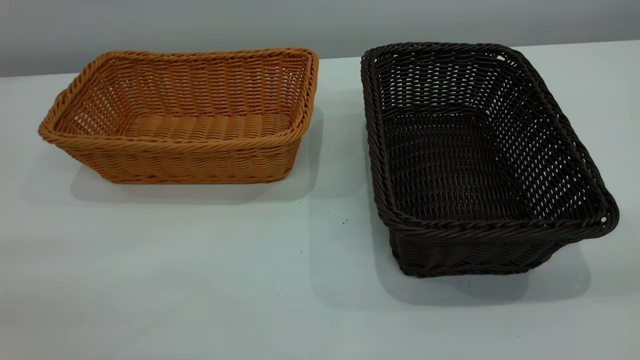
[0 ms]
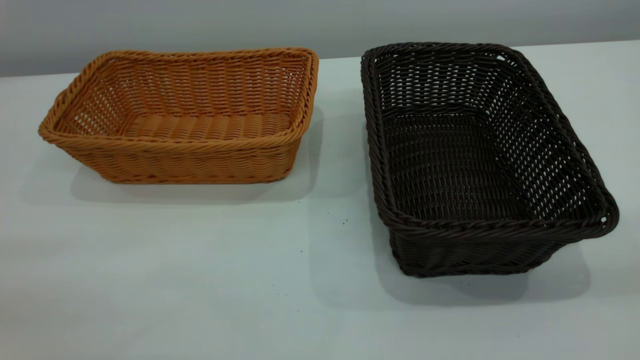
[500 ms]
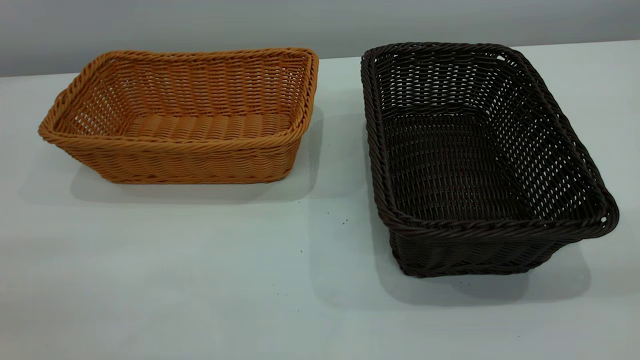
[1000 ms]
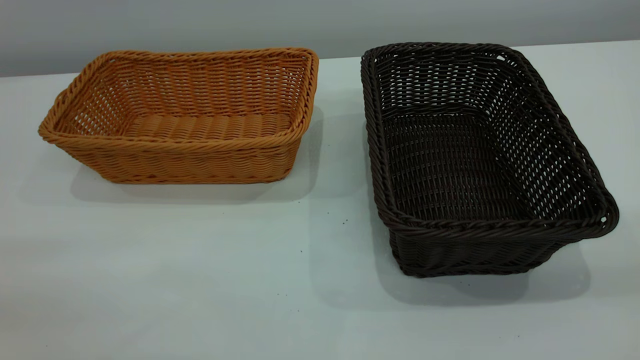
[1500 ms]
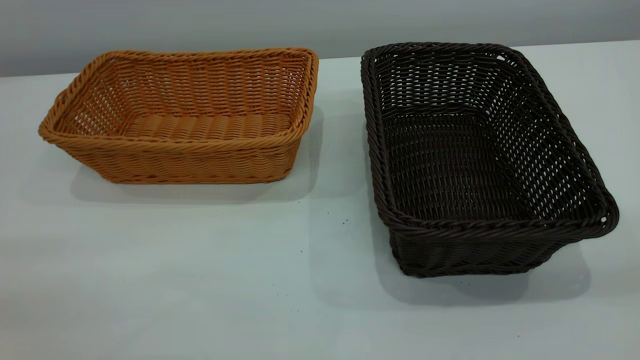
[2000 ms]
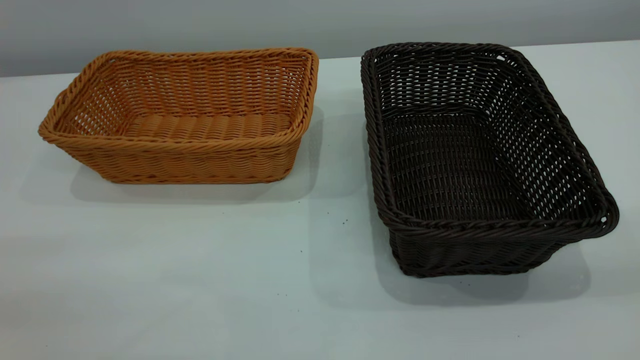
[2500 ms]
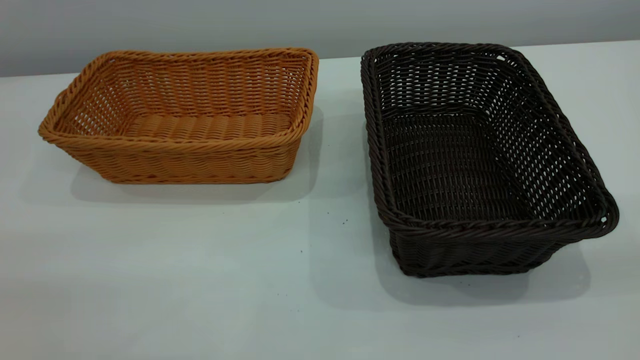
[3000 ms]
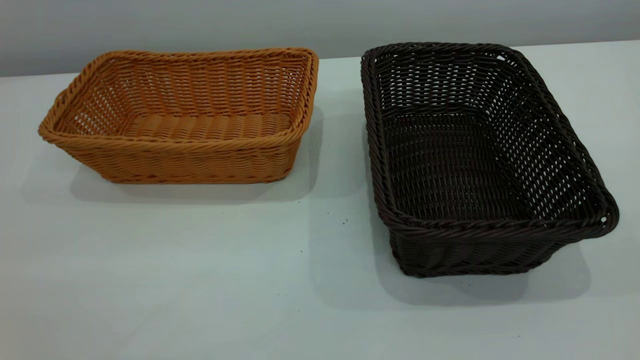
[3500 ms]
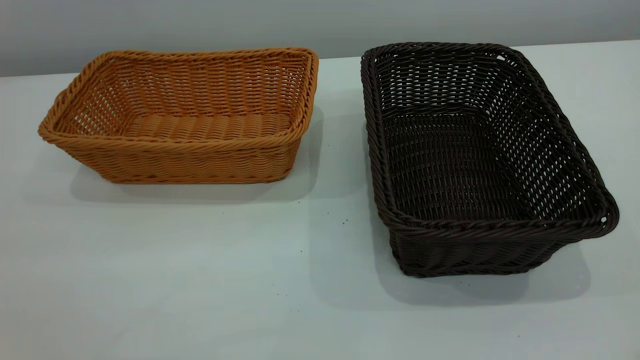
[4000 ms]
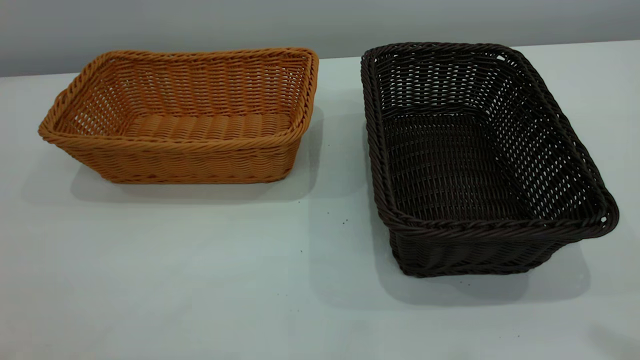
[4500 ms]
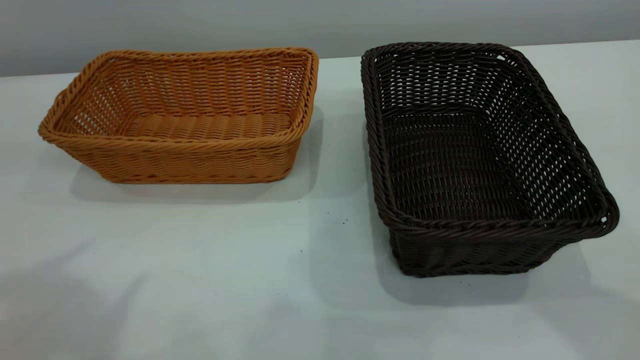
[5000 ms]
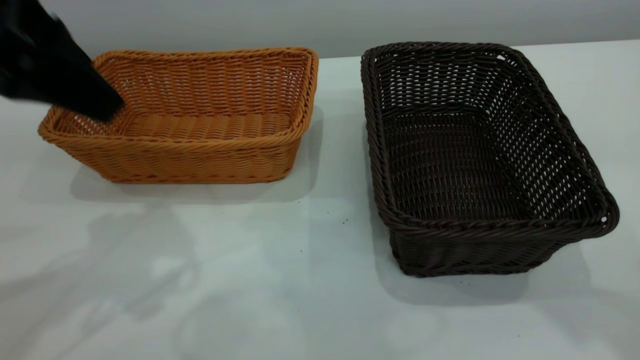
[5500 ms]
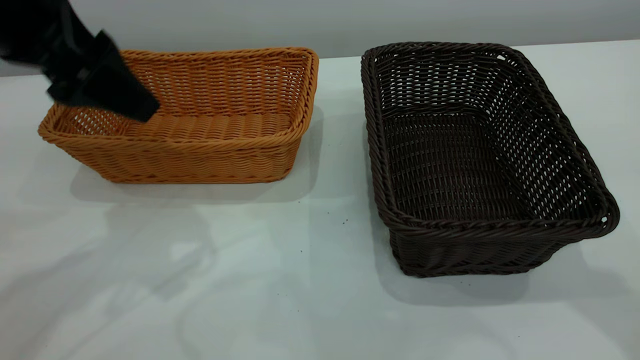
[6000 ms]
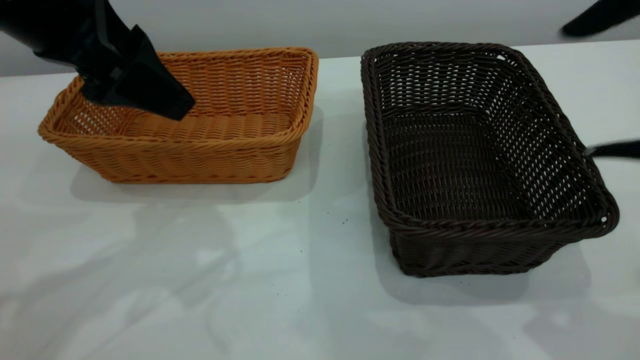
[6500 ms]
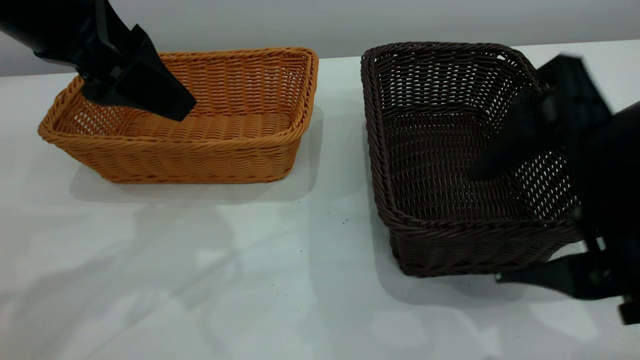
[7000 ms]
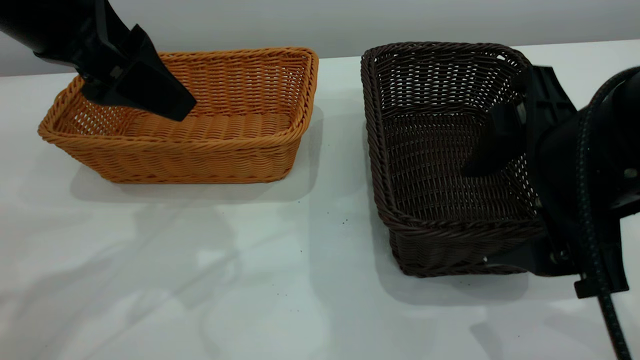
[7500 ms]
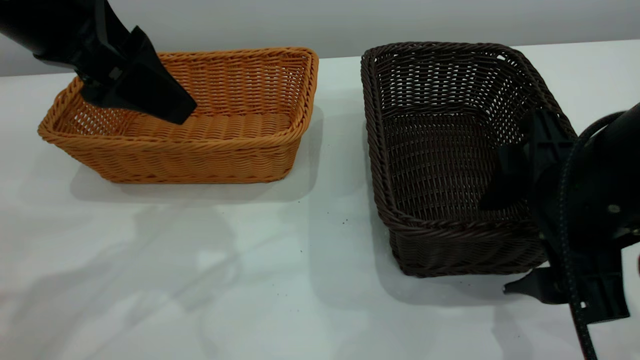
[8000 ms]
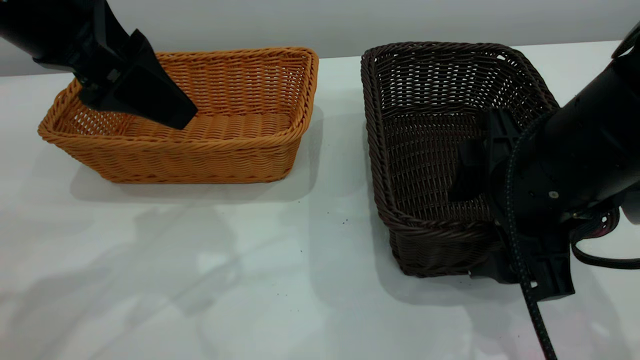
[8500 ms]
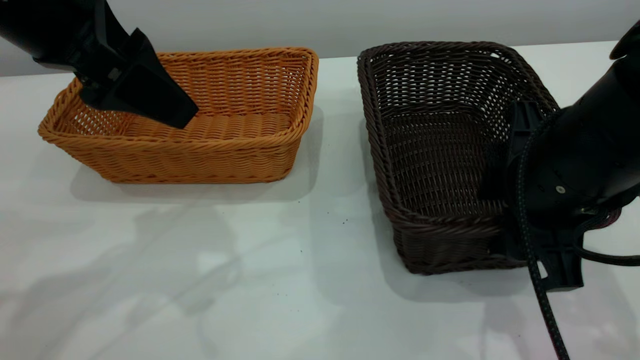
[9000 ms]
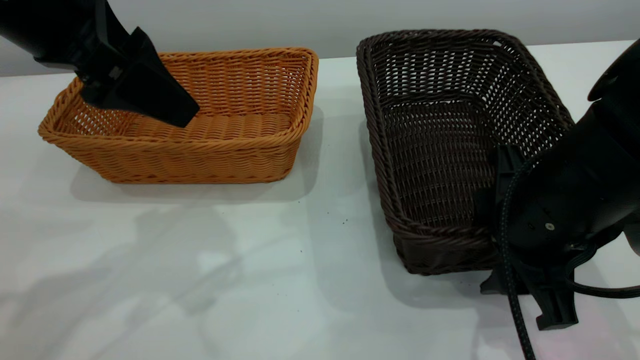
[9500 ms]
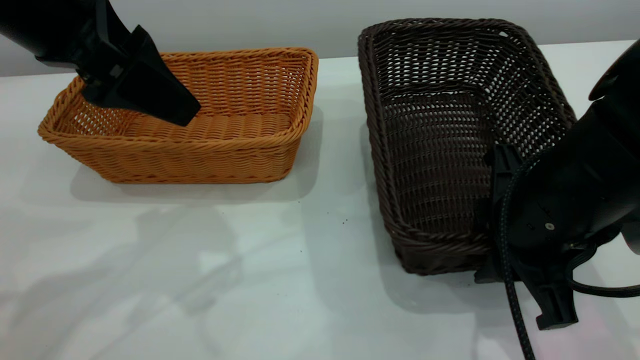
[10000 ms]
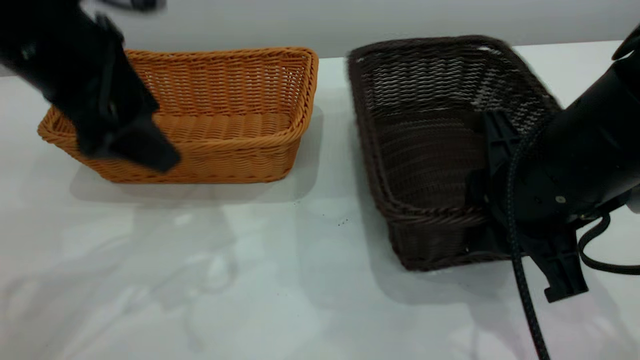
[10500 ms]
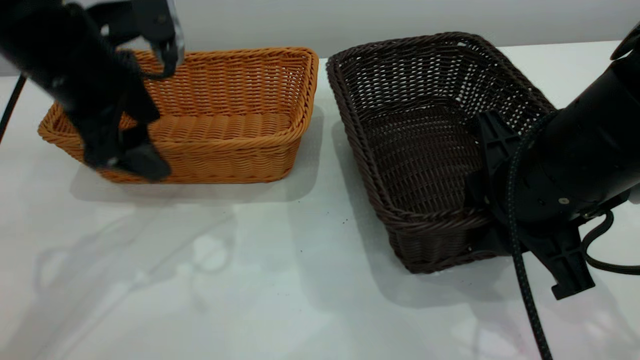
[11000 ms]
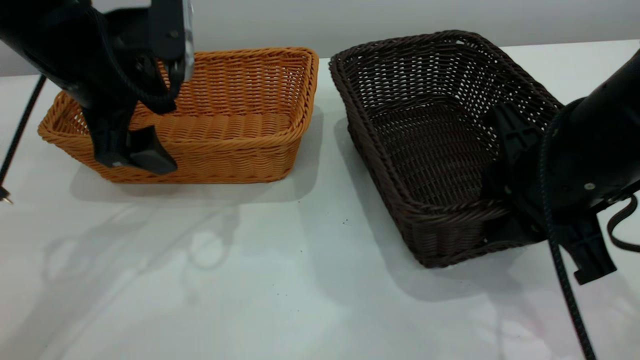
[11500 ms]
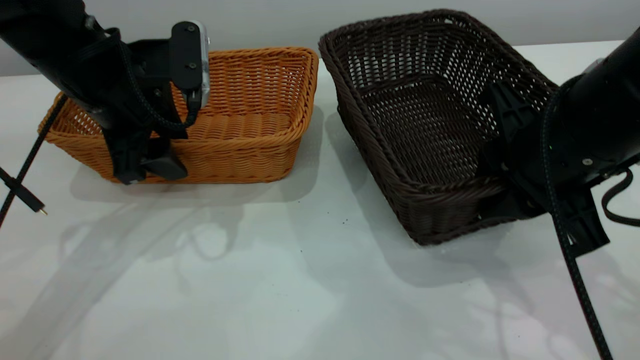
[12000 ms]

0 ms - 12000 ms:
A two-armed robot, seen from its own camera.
Task of the whole recording: the left gripper grasp the brown basket and place it in the center of the table, the right gripper grasp the black basket and place it inside the brown one.
0 ms - 2000 ms: The two grippers keep their place.
4000 ms - 6000 ms: The left gripper shifts roughly 30 cm forward and downward.
6000 ms - 8000 ms: The right gripper goes some 20 cm downward and to the left.
8000 ms - 10000 ms: The right gripper closes.
10000 ms - 12000 ms: The right gripper changes place by roughly 5 cm, while the left gripper is displaced downward and forward by roughly 15 cm, and closes up.

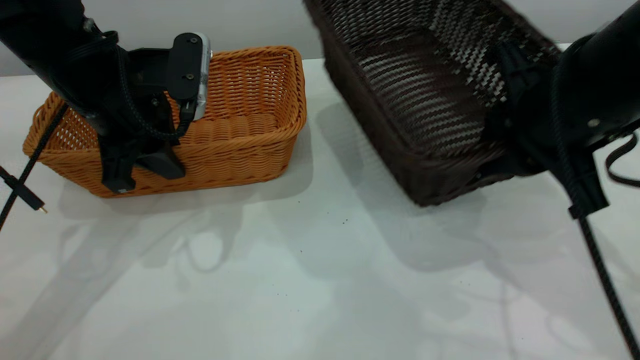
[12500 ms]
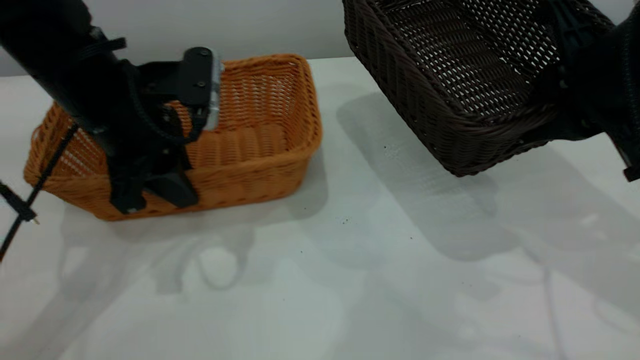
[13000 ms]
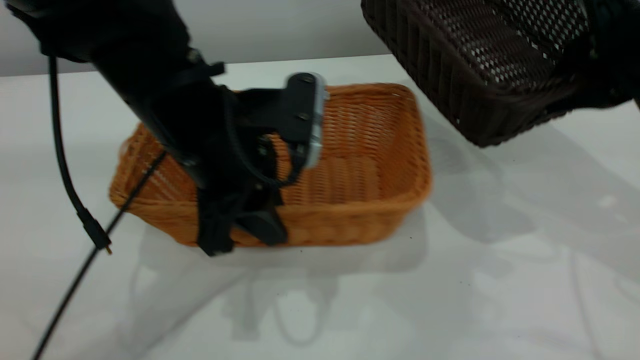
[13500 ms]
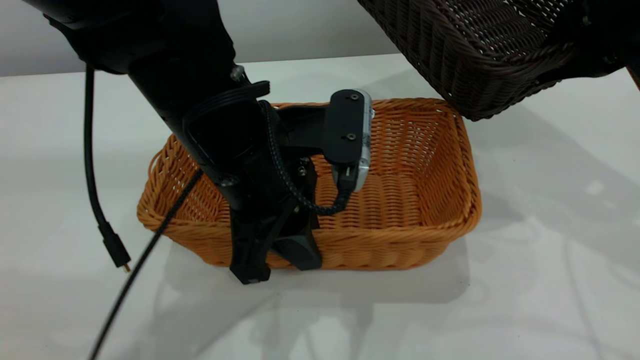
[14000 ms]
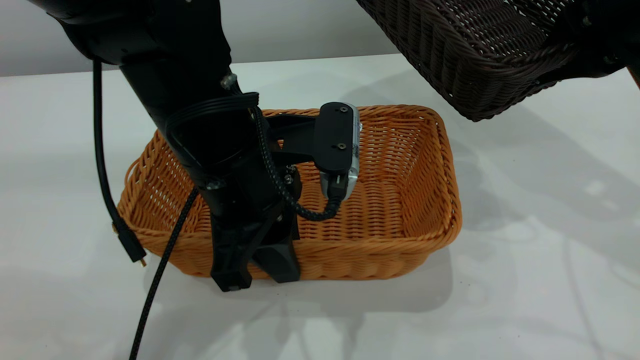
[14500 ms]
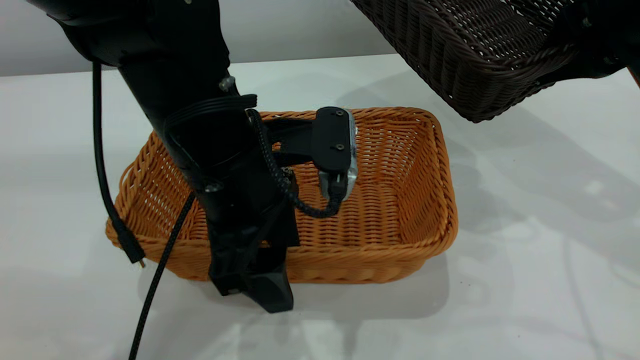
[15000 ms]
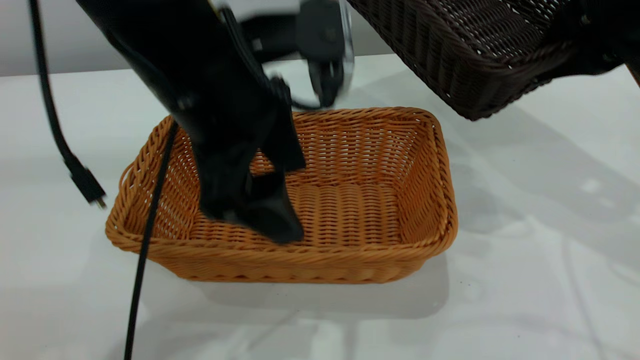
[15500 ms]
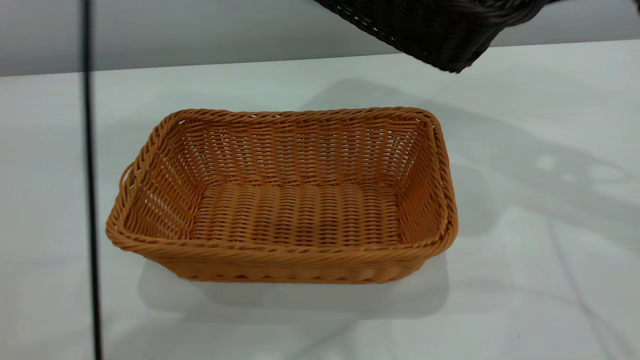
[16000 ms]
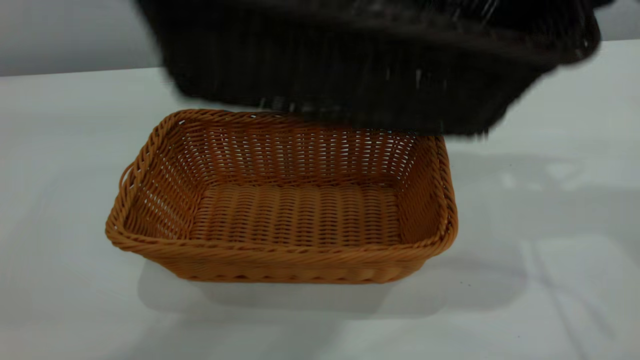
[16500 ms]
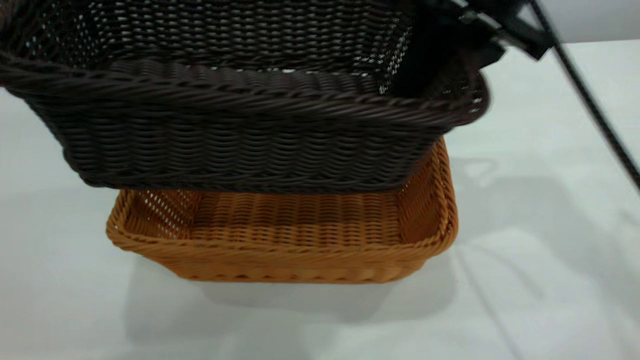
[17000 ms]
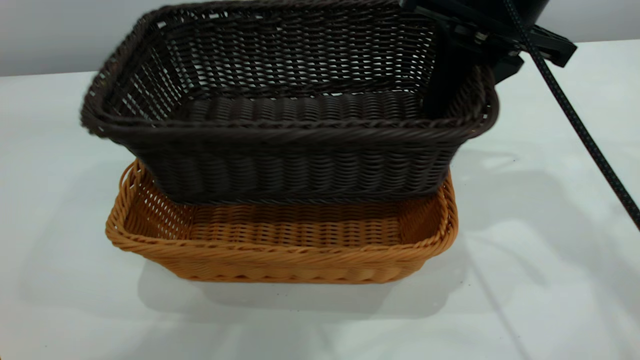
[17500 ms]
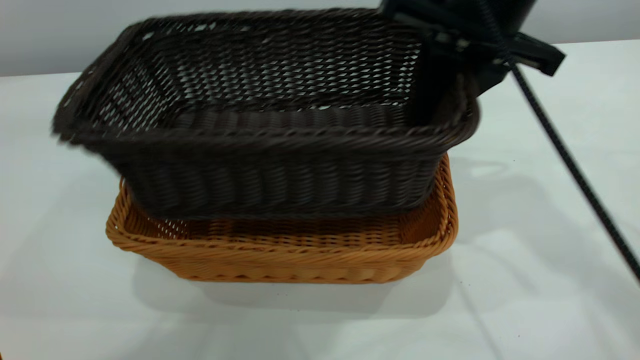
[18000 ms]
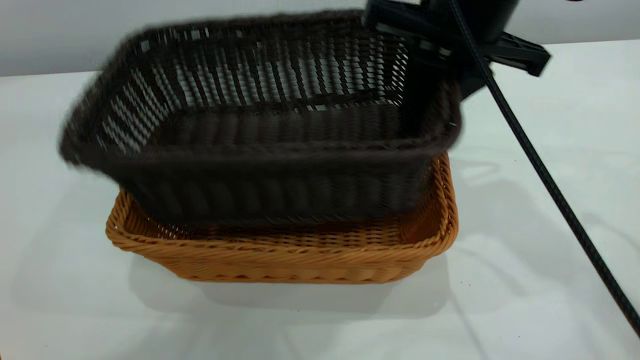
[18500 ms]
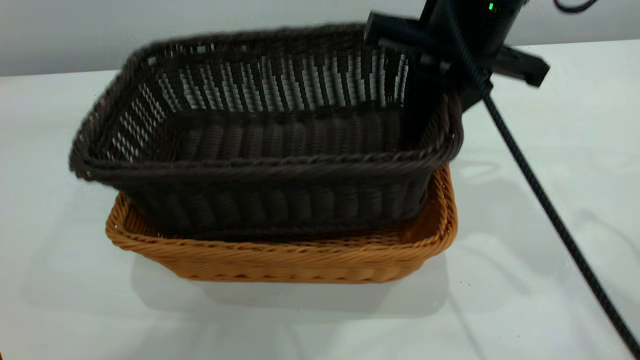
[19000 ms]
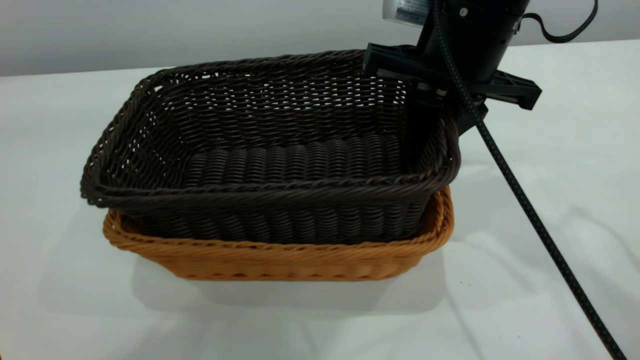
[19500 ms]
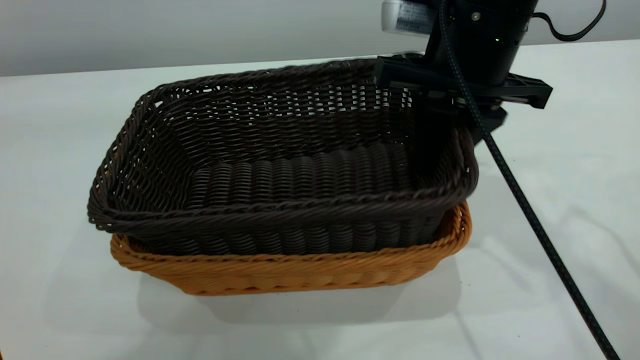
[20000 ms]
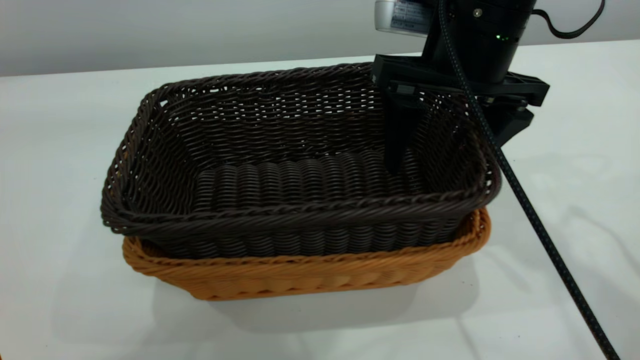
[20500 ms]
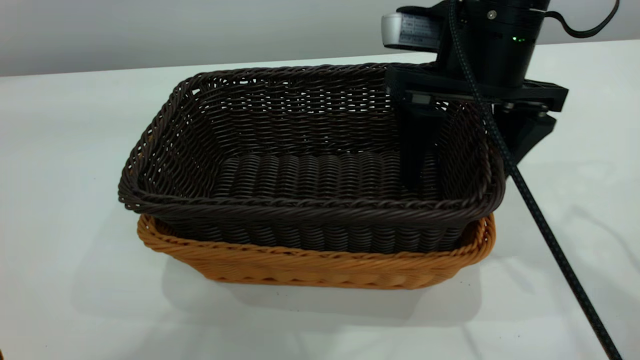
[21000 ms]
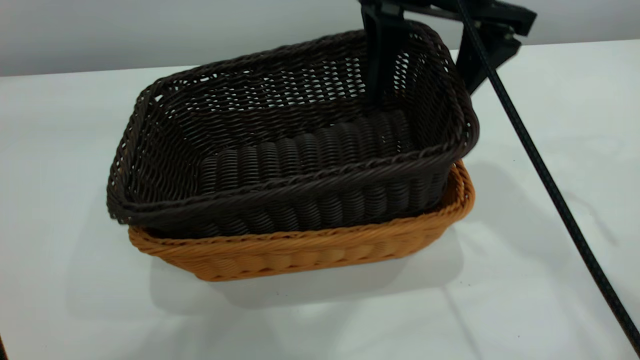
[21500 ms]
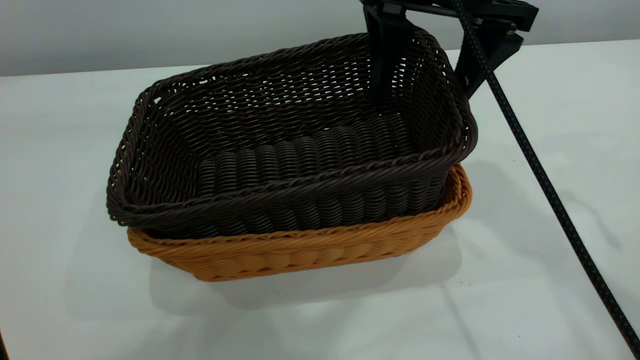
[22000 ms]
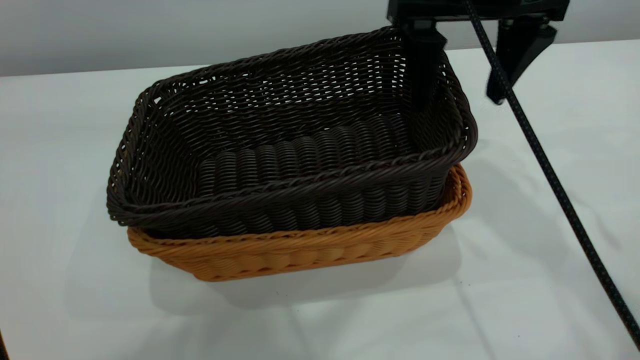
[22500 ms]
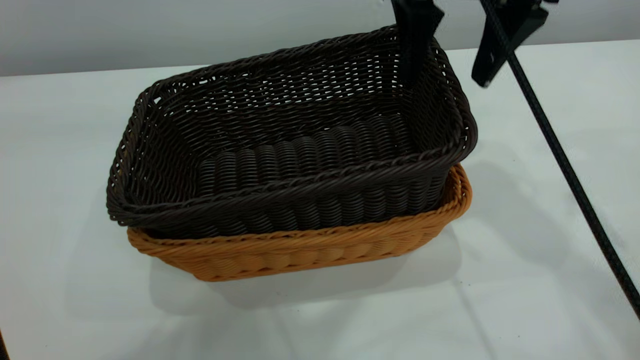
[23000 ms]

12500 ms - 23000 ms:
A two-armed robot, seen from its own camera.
Task of the whole recording: the left gripper grasp the brown basket and place it in the center of the table, the right gripper grasp the black basket and place it inside the brown one.
Step, 13000 ms - 15000 ms: Place the light-colored basket in the center.
Step, 15500 ms - 22500 ms: Place the dark basket on top of the light basket.
12500 ms - 14500 ms: The right gripper moves to the right, about 5 cm, while the left gripper heads to the right and backward, covering some 15 cm.
14500 ms - 16500 ms: The left gripper moves upward, about 35 cm, and opens its fingers. Meanwhile the right gripper heads upward, covering roughly 5 cm.
16500 ms - 19000 ms: The right gripper goes about 10 cm to the left and downward.
19000 ms - 21000 ms: The right gripper opens its fingers.
21000 ms - 23000 ms: The right gripper heads upward, covering some 5 cm.
